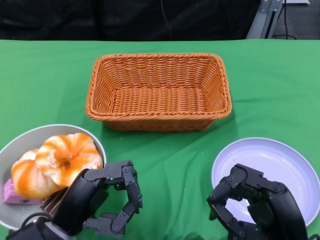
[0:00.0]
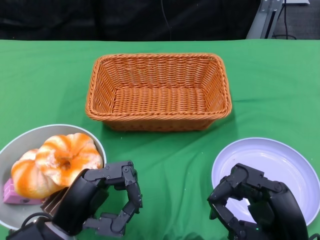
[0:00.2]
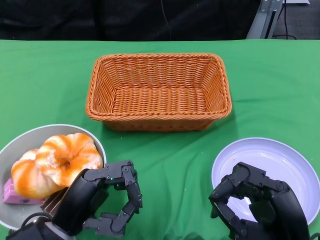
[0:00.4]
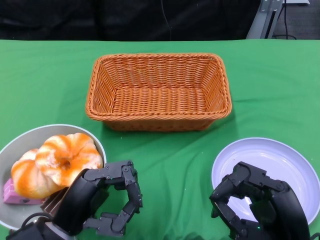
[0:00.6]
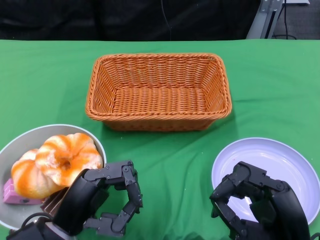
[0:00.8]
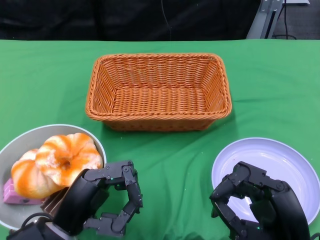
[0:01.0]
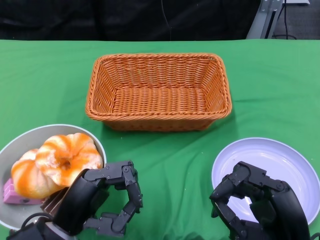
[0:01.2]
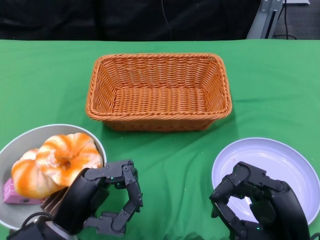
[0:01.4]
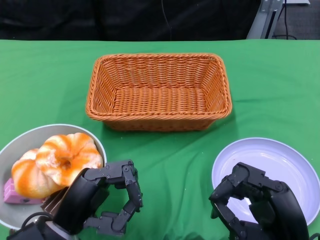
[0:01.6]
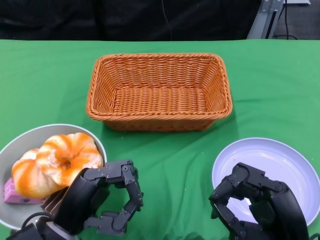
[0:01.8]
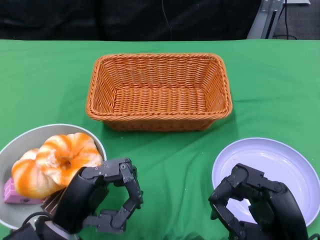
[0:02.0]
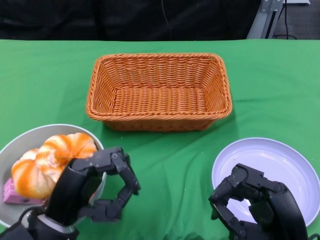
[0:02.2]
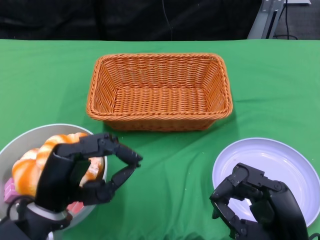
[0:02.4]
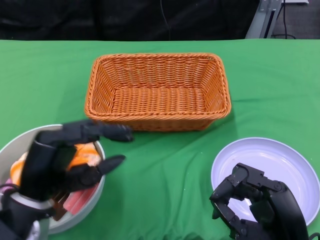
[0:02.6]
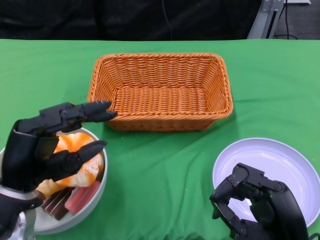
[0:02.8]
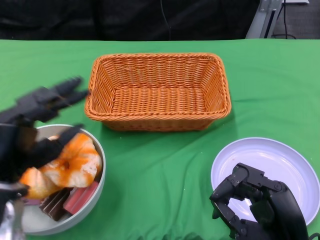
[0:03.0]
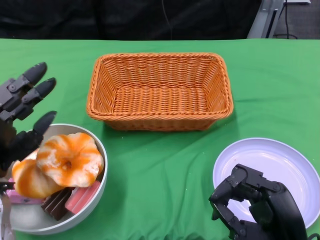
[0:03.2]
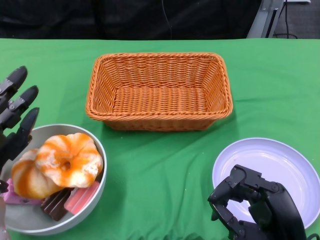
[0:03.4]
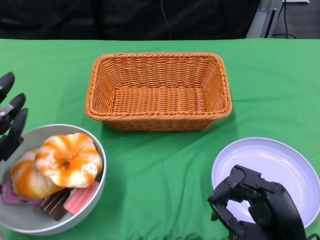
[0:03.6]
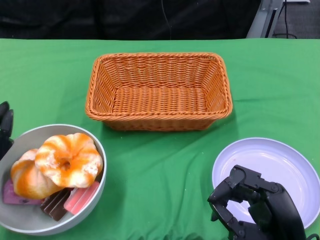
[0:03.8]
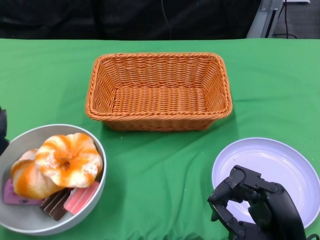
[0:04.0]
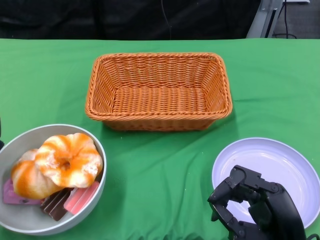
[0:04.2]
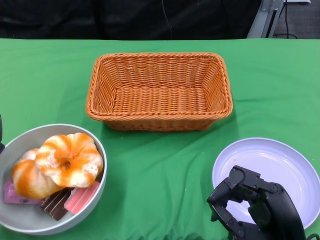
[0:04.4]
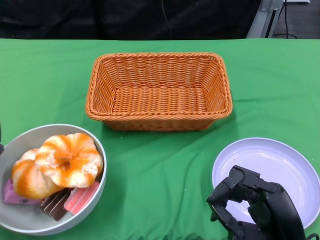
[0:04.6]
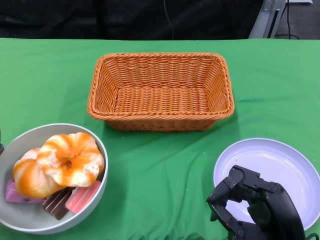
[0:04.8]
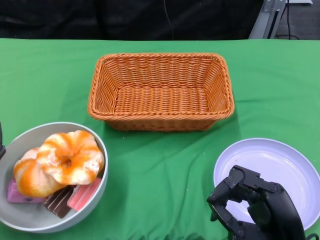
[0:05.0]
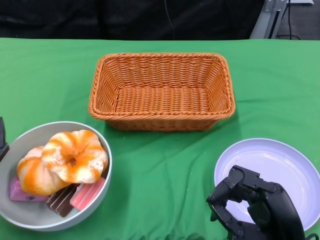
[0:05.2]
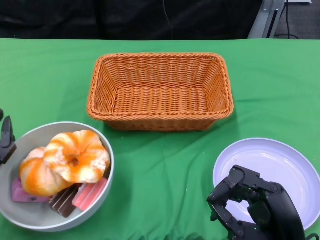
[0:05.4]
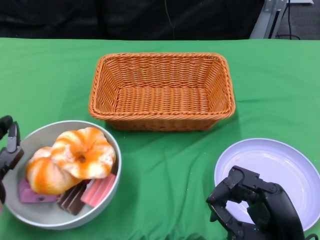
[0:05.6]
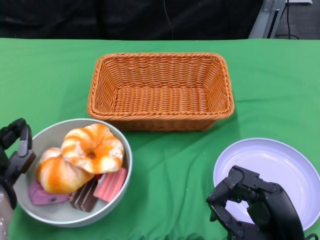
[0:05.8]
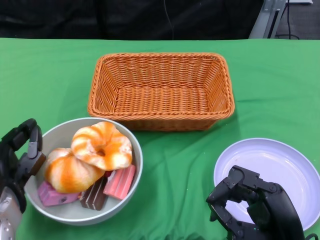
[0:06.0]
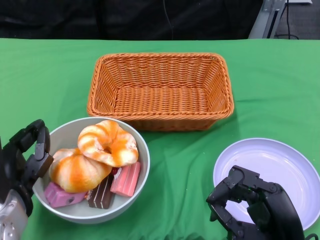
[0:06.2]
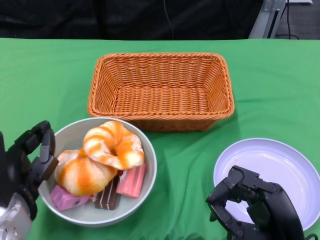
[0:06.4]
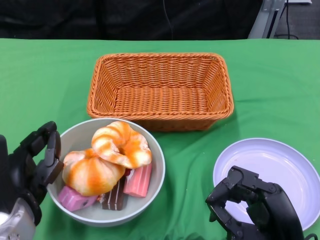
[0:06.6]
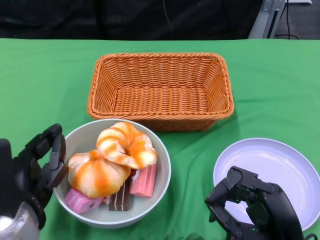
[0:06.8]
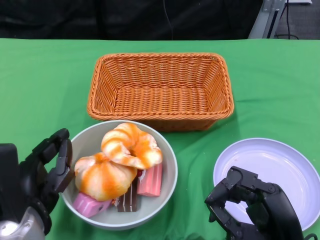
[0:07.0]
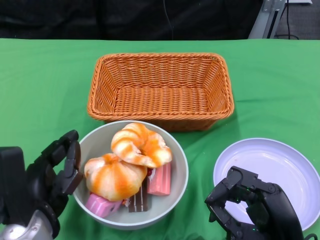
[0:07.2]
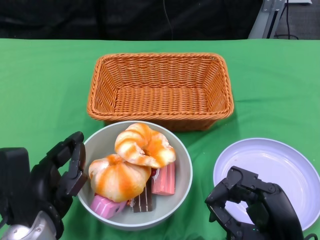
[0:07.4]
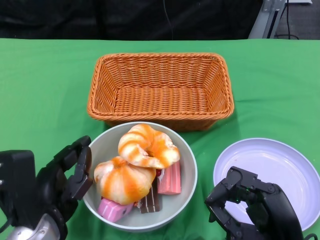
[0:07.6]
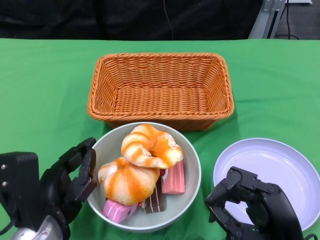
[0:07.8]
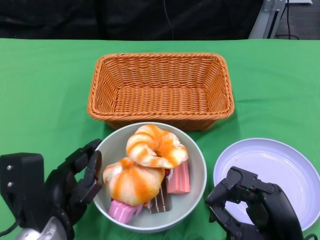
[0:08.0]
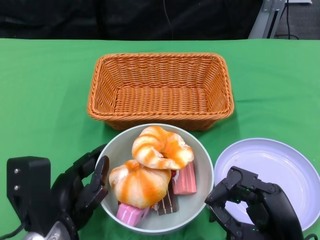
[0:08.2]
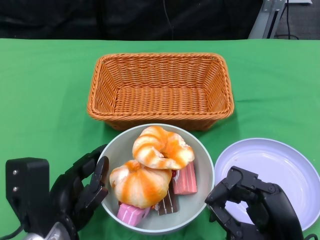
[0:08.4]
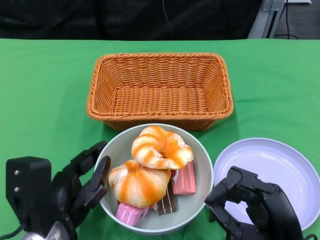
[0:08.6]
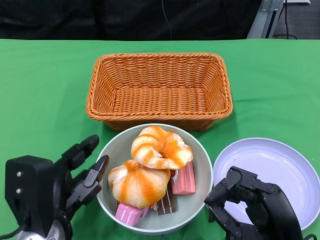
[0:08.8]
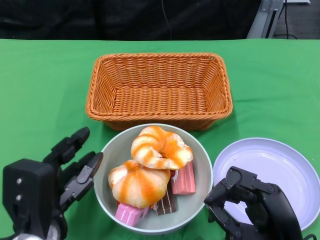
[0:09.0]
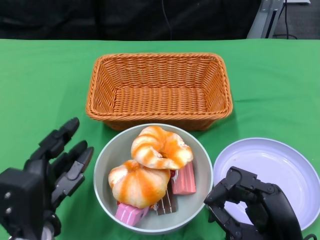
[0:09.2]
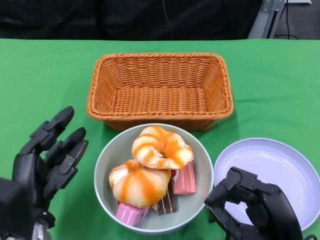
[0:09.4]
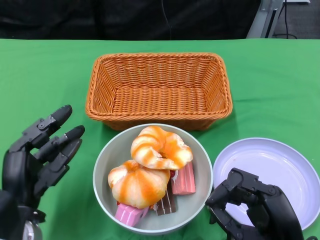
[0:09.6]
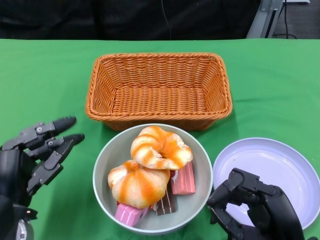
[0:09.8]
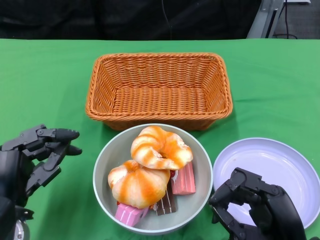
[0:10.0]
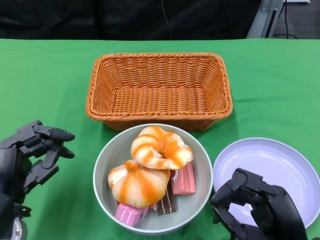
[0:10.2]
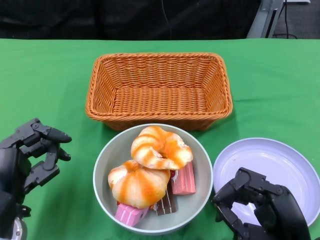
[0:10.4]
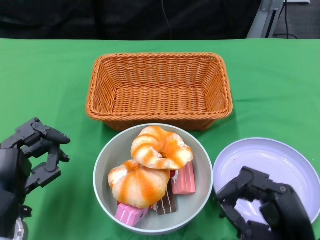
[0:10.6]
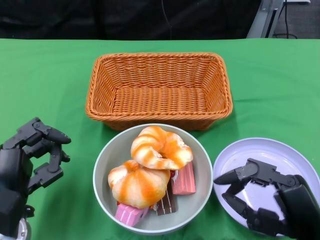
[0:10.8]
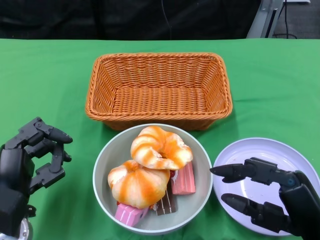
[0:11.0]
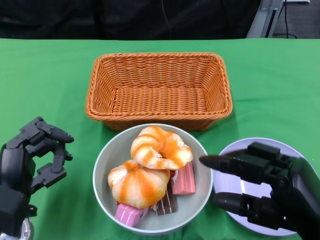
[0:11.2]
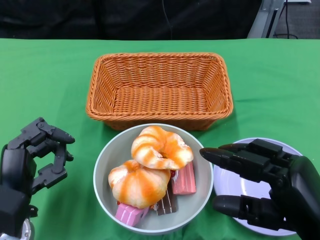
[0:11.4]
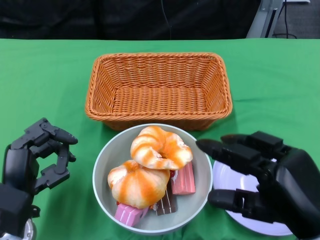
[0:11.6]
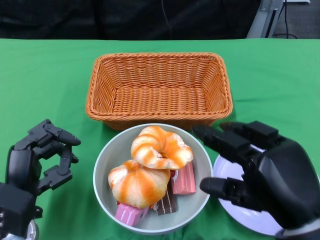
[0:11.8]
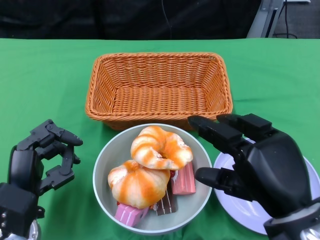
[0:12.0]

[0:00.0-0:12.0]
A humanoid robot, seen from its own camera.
Step, 0:00.0 to 0:08.8: Push the bowl to the center of the table using the left gripper.
0:01.6 to 0:03.0: The left hand travels to the left and upward by roughly 10 cm.
0:03.0 to 0:04.4: The left hand is displaced to the left by about 5 cm.
0:06.0 to 0:07.6: The left hand travels to the right by about 5 cm.
0:09.0 to 0:10.4: The left hand shifts by roughly 5 cm.
0:10.4 to 0:12.0: The right hand shifts some 10 cm upward.

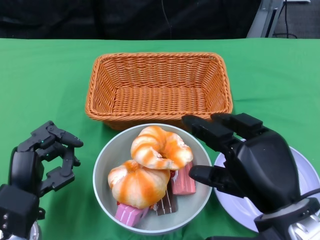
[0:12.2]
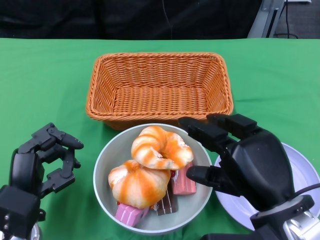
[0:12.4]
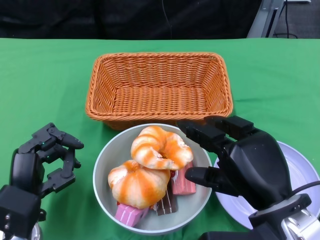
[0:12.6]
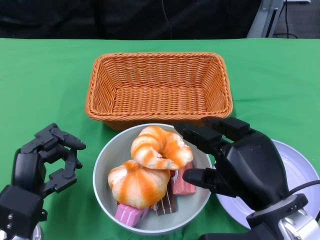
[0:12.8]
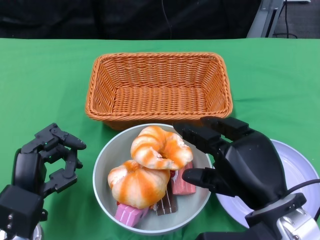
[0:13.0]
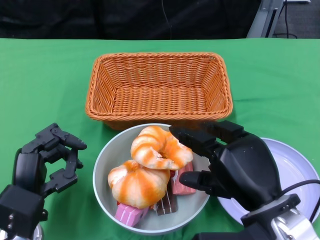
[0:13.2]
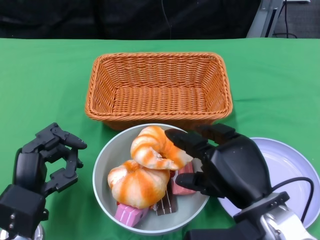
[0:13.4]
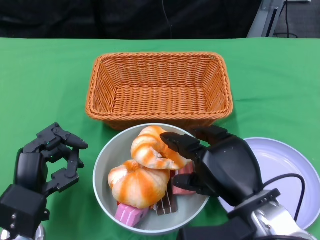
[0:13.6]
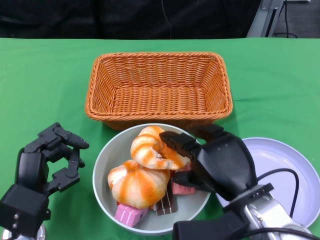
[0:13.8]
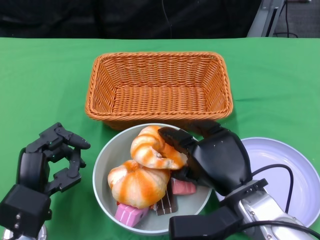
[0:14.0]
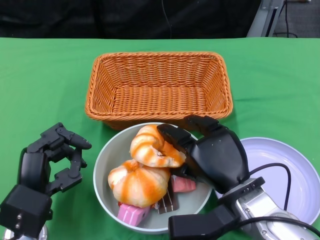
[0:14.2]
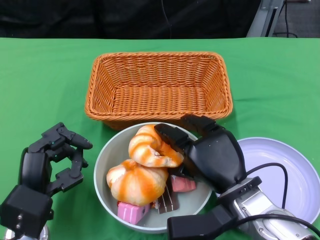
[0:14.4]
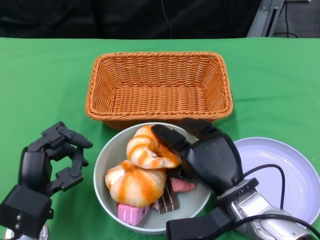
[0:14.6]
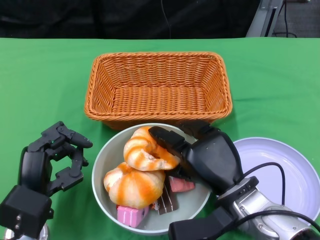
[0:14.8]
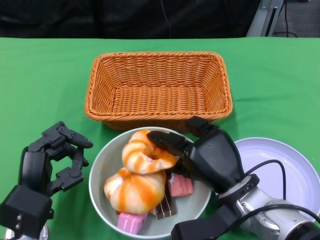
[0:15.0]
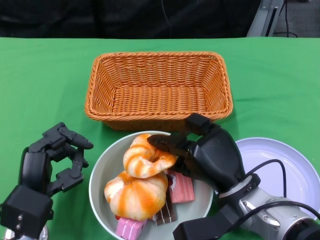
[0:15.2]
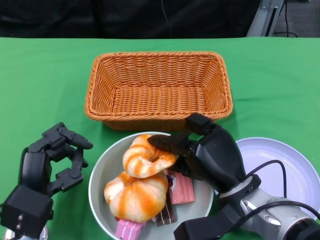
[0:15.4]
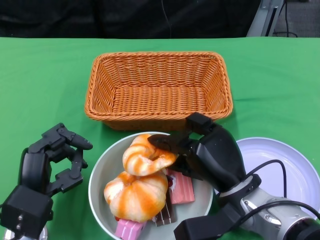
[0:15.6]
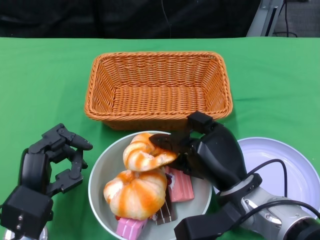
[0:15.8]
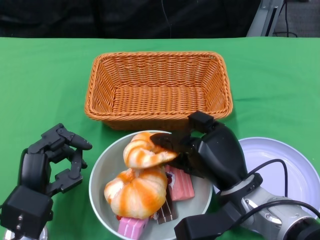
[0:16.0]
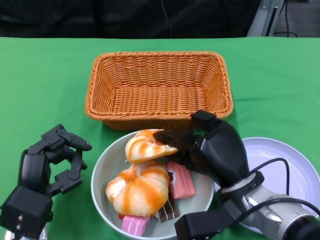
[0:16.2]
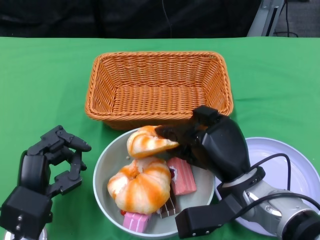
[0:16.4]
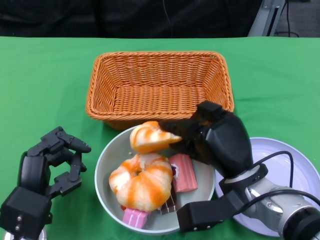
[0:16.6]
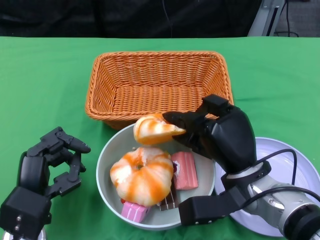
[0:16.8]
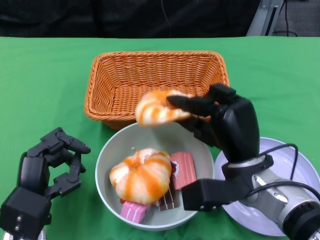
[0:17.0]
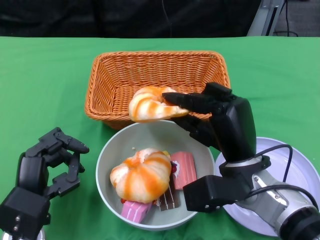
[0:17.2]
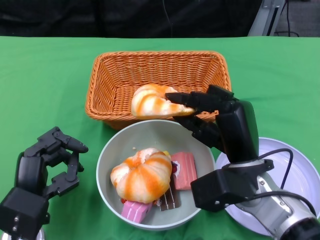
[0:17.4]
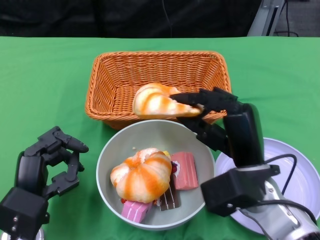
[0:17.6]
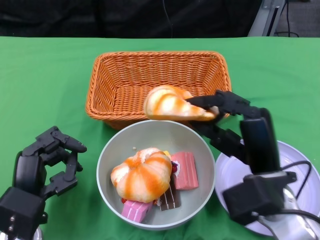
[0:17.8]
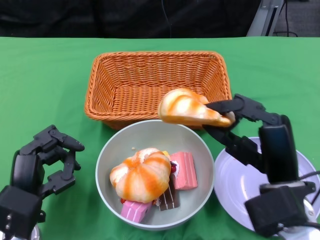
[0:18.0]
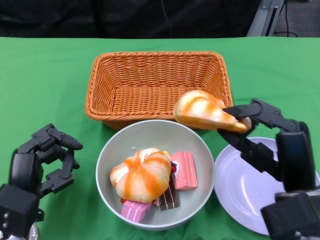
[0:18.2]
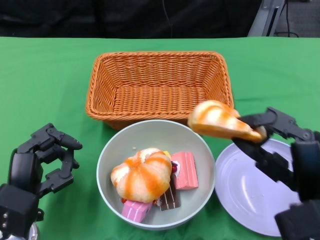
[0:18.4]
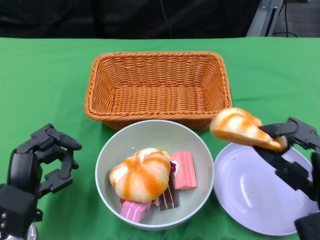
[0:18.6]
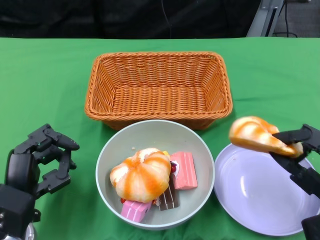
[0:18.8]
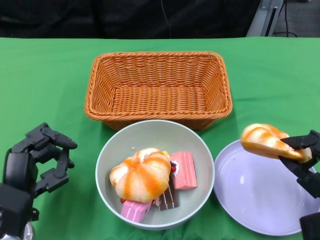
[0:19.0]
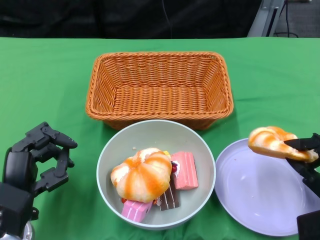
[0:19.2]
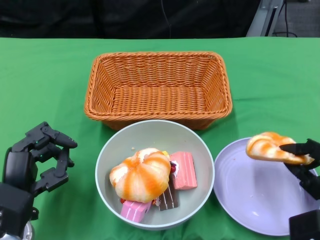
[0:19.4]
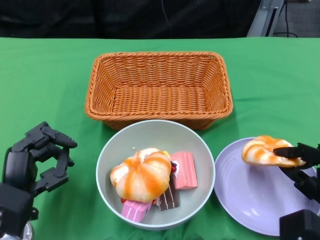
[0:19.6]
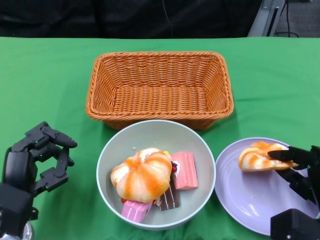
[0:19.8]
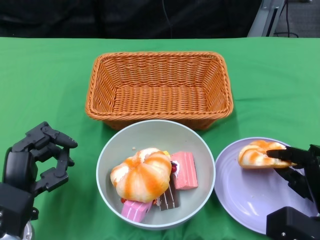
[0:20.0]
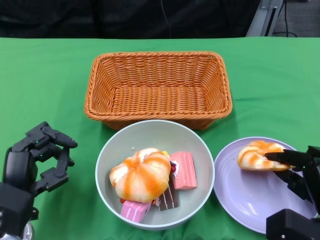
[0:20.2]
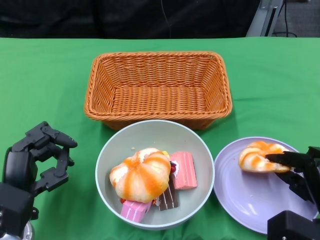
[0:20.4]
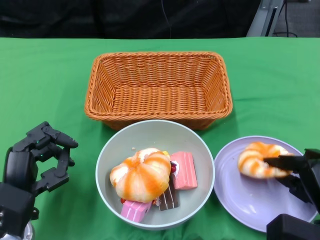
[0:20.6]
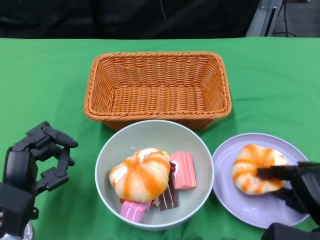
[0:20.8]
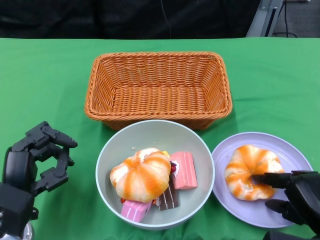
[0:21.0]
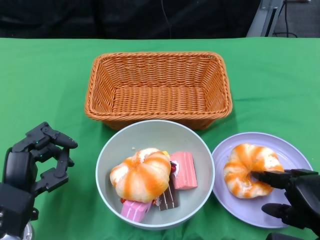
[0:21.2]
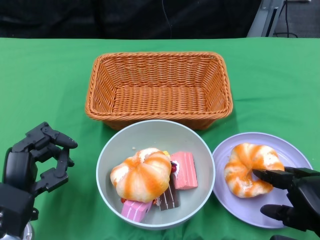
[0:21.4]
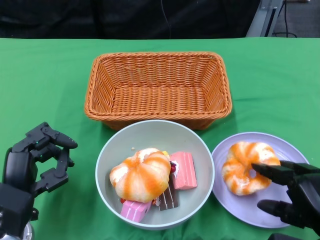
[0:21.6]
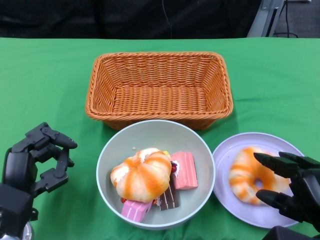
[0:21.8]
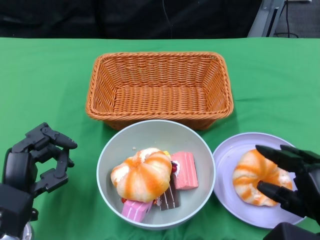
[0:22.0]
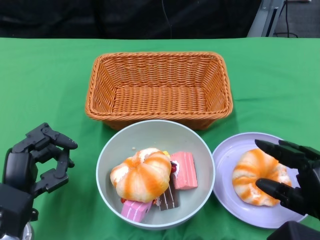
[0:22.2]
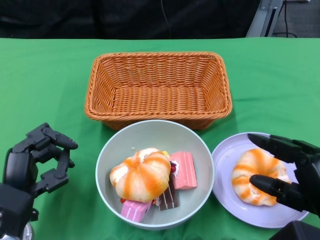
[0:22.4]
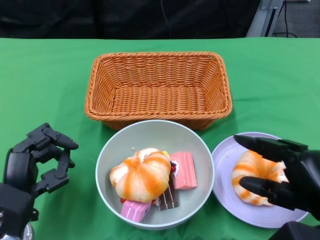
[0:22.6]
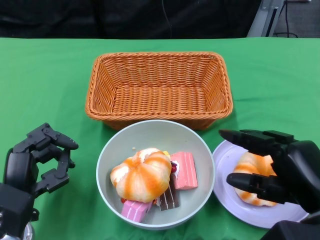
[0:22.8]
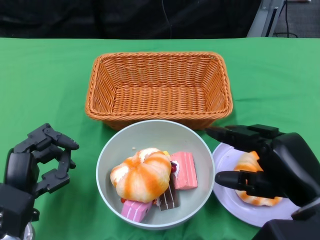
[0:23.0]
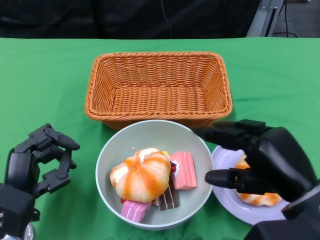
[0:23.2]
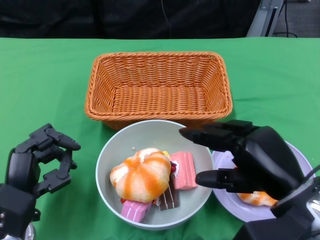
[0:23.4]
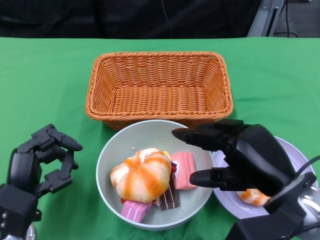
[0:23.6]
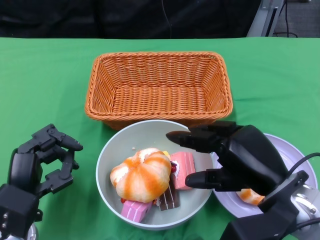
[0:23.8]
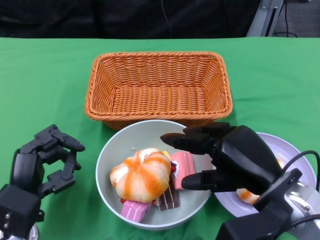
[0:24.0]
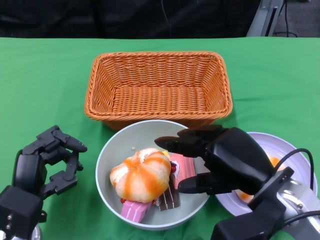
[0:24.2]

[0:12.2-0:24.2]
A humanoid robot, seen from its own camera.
0:12.2 to 0:13.8: The right hand shifts by about 5 cm.
0:16.6 to 0:18.2: The right hand shifts roughly 10 cm to the right, backward and upward.
0:18.2 to 0:19.8: The right hand heads downward and to the right, covering about 10 cm.
0:21.2 to 0:22.6: The right hand travels upward by some 5 cm.
0:22.6 to 0:24.2: The right hand moves to the left and forward, approximately 10 cm.
